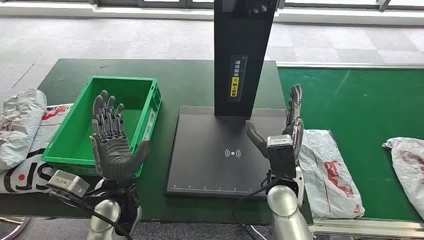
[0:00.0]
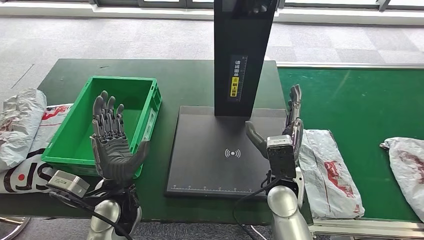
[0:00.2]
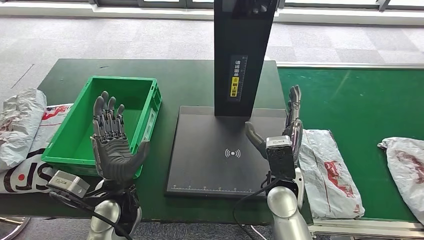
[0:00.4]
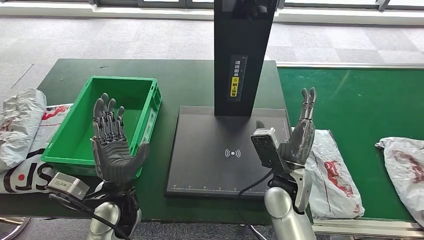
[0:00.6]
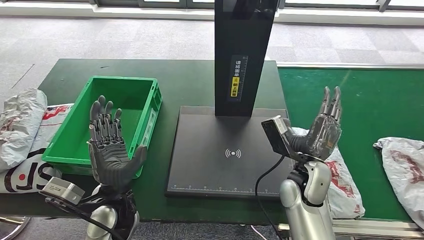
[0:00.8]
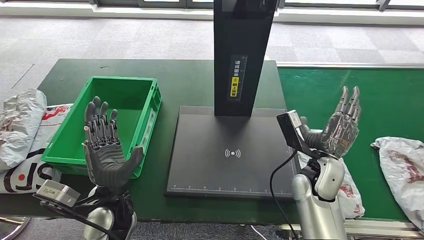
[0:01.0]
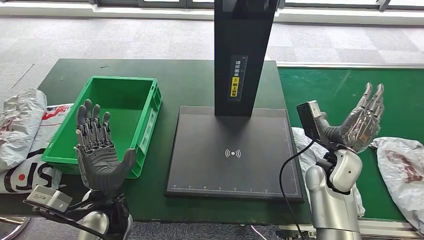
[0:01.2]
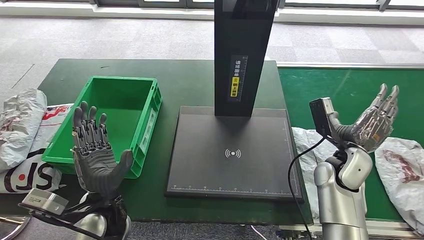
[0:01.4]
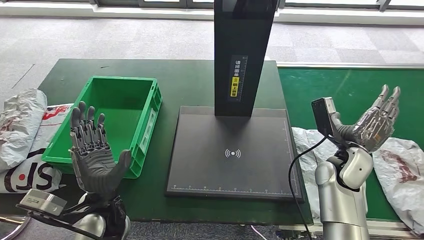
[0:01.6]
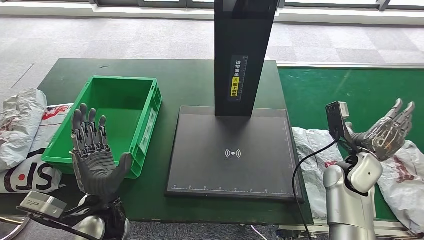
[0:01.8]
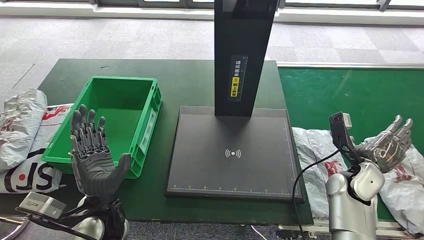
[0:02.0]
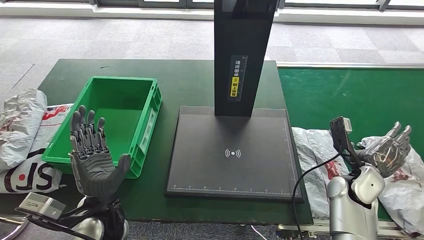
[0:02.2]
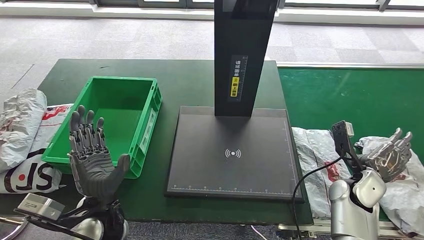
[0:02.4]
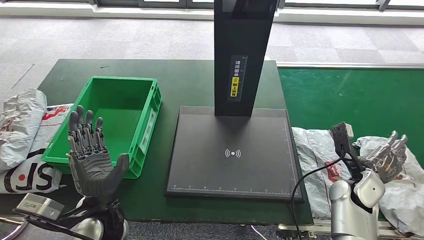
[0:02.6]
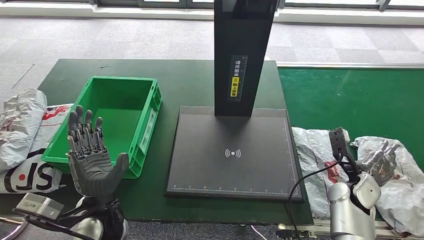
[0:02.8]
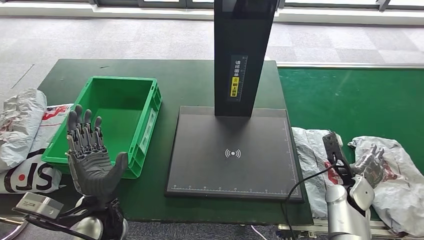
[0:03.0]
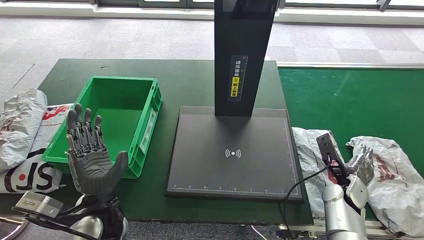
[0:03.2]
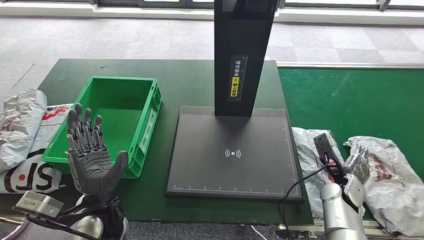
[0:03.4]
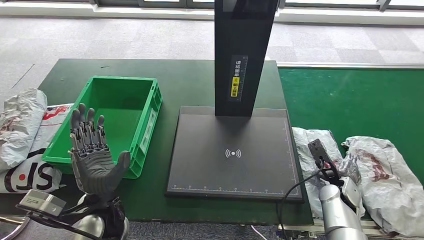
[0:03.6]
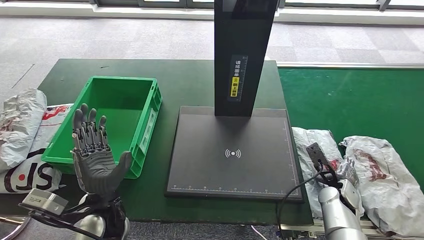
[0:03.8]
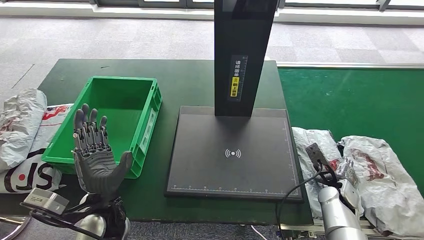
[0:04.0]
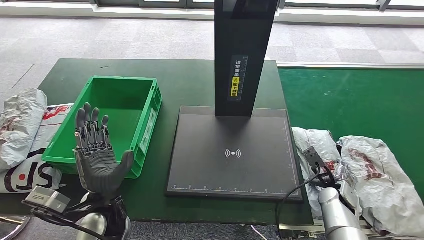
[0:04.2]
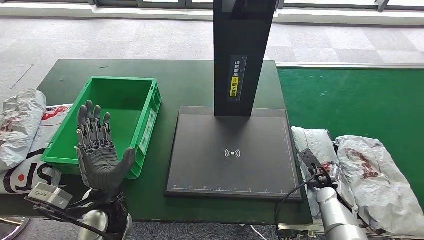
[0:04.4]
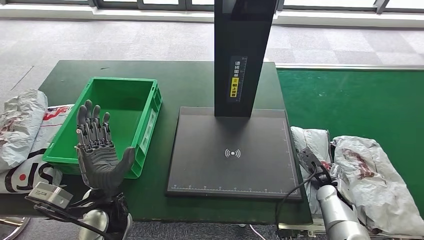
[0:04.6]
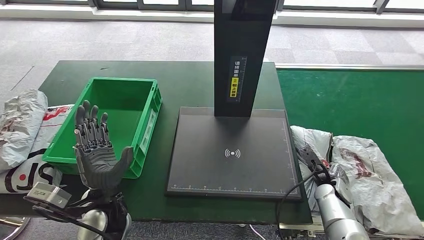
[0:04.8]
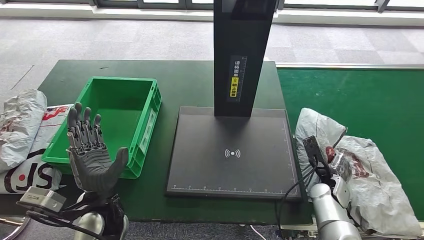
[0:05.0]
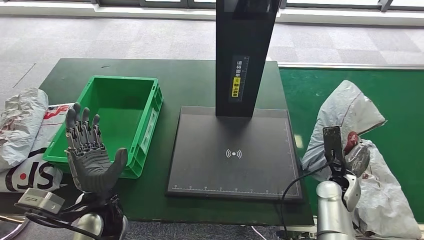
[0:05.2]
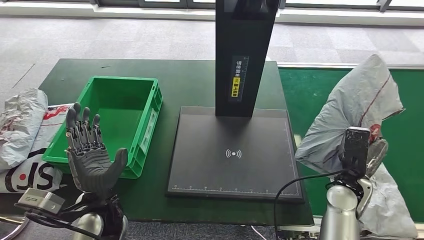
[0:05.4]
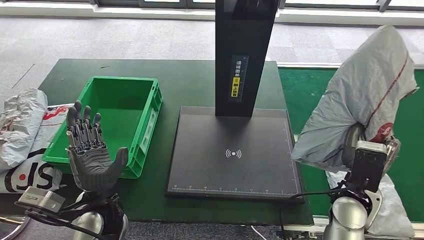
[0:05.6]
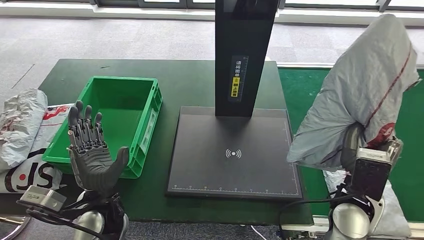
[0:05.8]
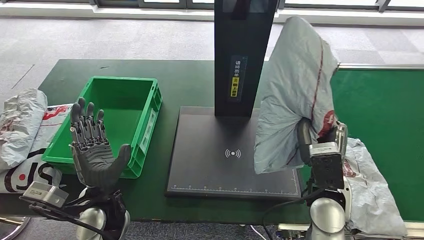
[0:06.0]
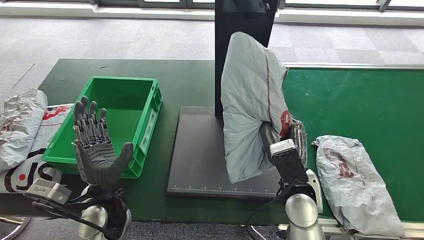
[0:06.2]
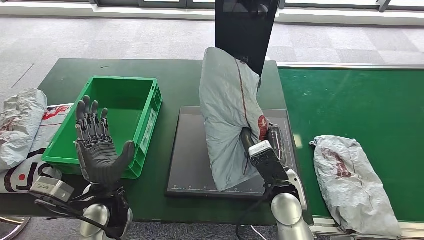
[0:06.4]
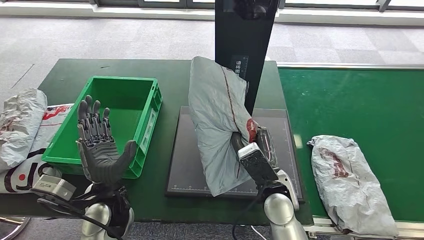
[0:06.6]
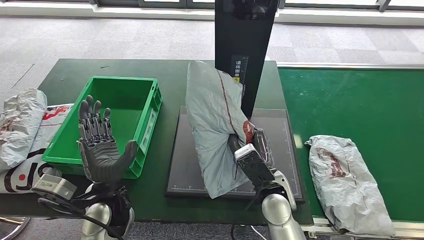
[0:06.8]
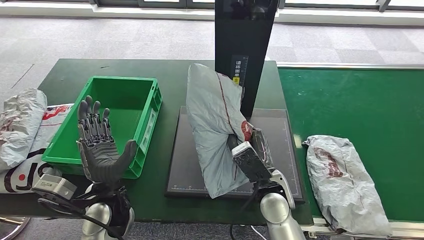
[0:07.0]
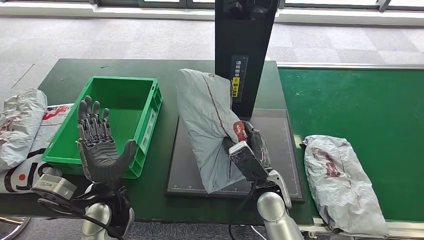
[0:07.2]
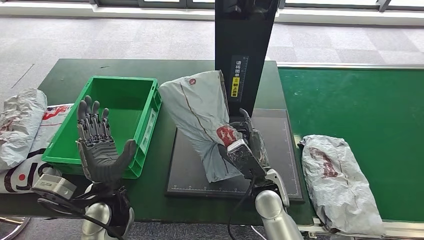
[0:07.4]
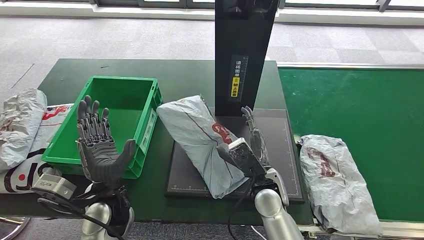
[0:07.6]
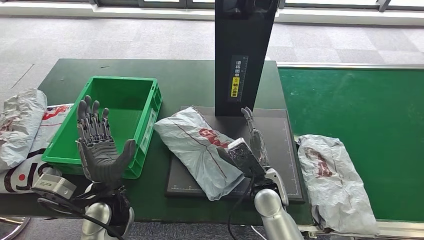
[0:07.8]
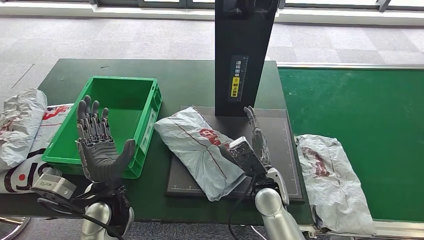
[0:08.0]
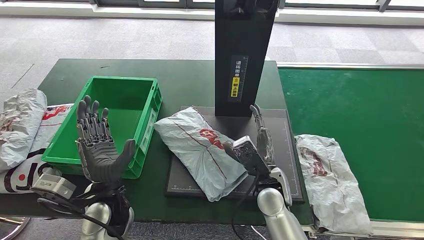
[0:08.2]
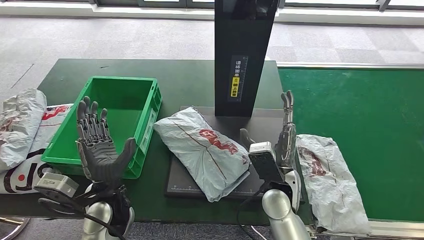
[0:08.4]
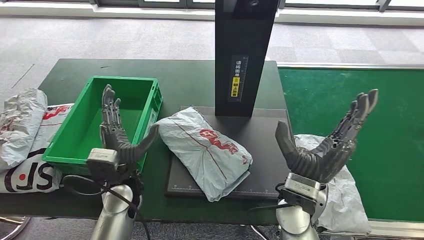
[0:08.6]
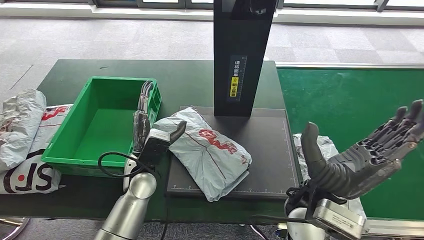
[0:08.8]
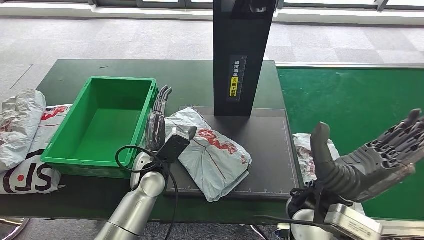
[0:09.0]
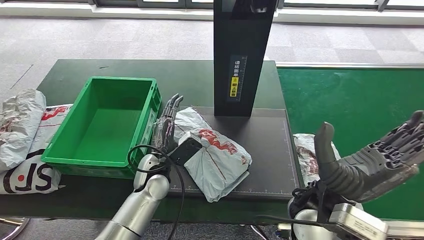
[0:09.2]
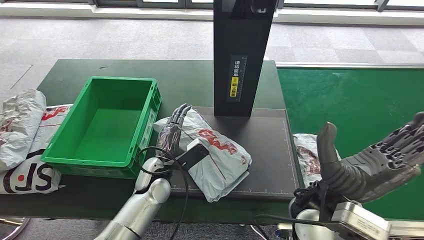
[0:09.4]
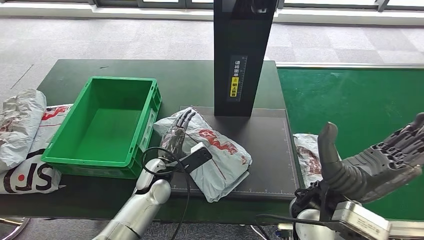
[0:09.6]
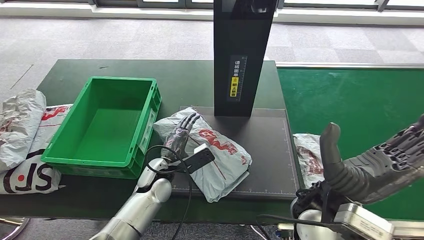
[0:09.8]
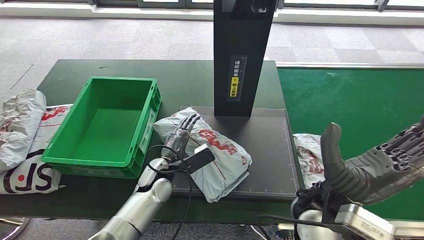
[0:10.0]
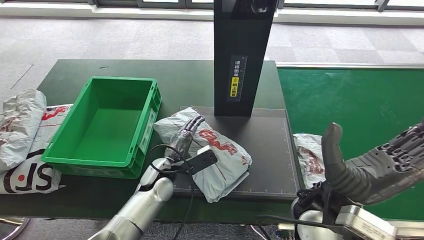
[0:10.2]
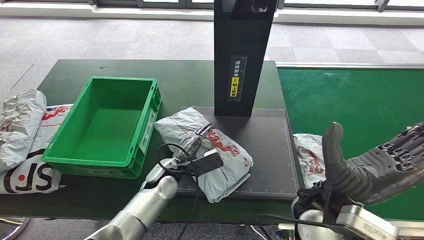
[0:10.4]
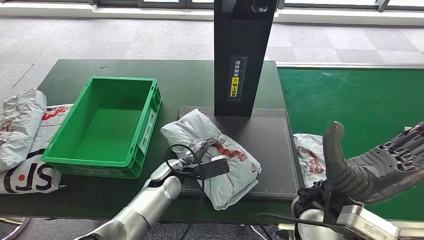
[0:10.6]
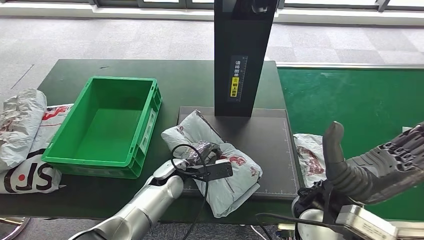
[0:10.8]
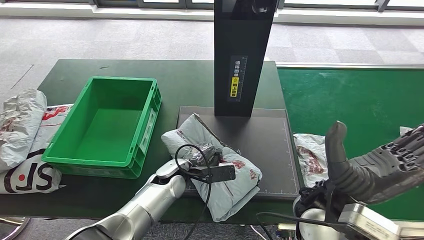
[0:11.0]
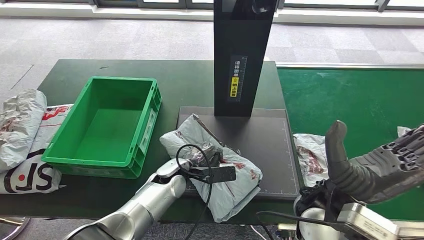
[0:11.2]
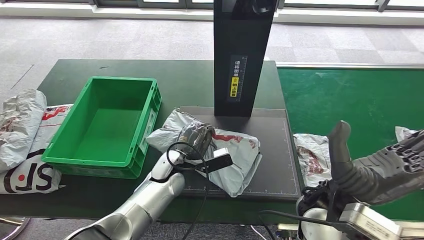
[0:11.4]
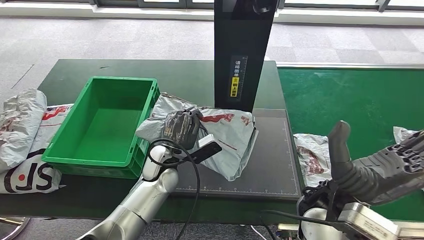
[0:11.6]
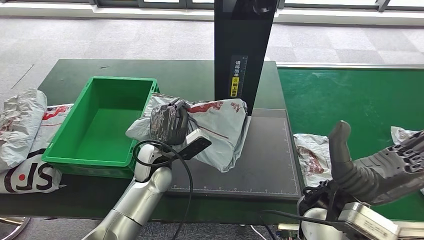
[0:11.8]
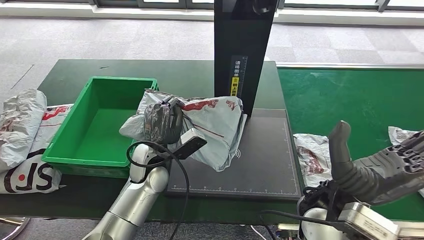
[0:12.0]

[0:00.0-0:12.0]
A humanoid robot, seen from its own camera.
Step, 0:00.0 to 0:05.6: Take the parcel off the conveyor belt.
Step, 0:05.8 to 0:08.8: Place the parcel onto the inbound machine.
0:01.6 to 0:03.0: The right hand travels downward and to the right by some 10 cm.
0:03.0 to 0:04.4: The right hand travels downward by roughly 5 cm.
0:04.4 to 0:06.0: The right hand goes about 20 cm upward and to the left.
0:09.0 to 0:10.4: The left hand moves downward, about 5 cm.
0:10.4 to 0:12.0: The left hand heads upward, covering approximately 5 cm.

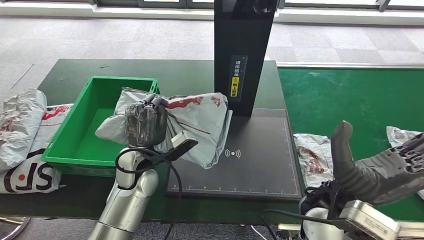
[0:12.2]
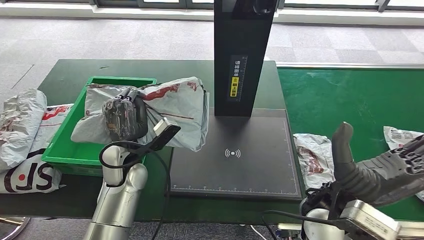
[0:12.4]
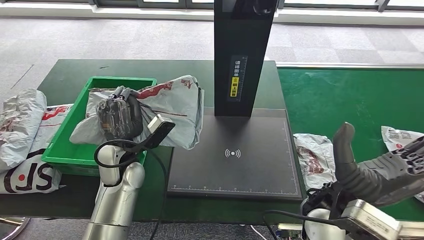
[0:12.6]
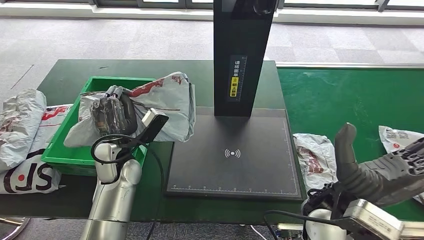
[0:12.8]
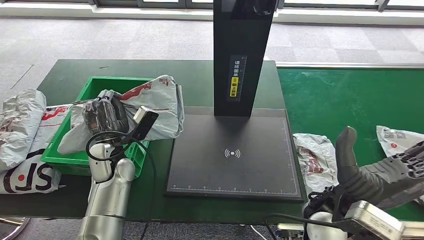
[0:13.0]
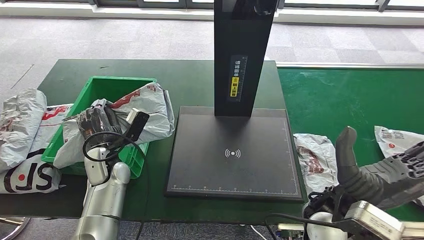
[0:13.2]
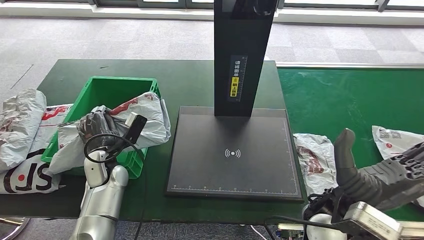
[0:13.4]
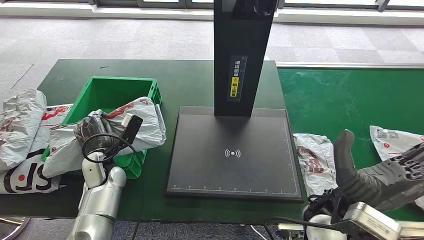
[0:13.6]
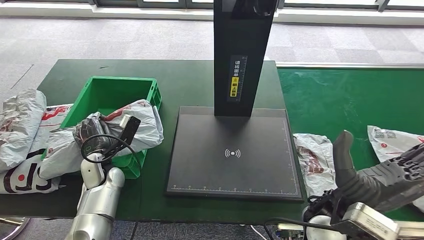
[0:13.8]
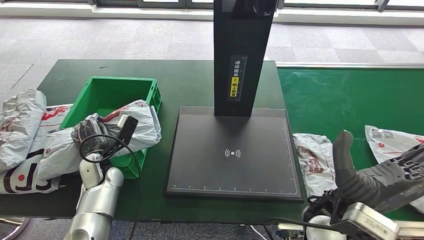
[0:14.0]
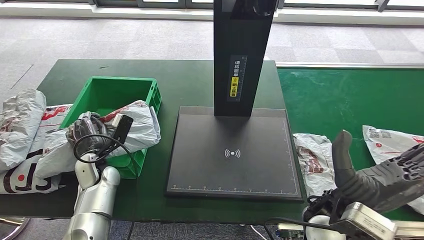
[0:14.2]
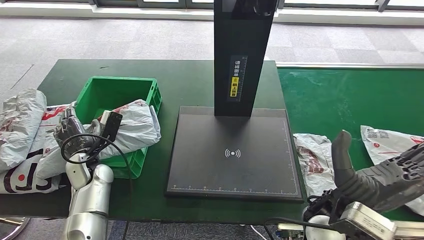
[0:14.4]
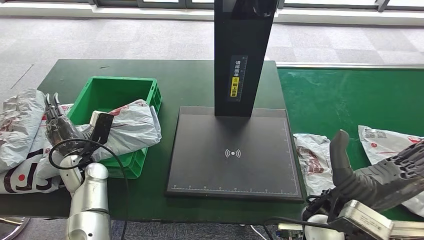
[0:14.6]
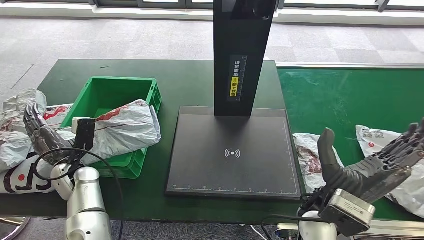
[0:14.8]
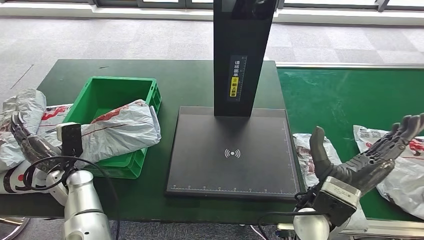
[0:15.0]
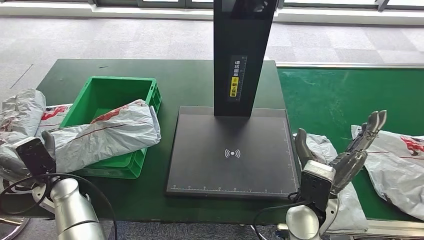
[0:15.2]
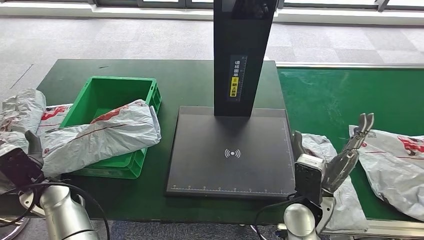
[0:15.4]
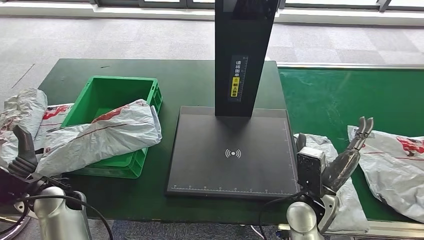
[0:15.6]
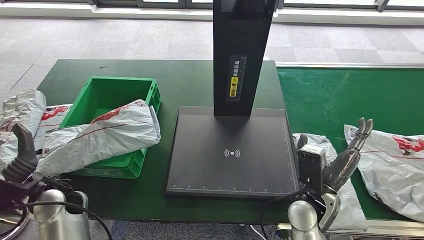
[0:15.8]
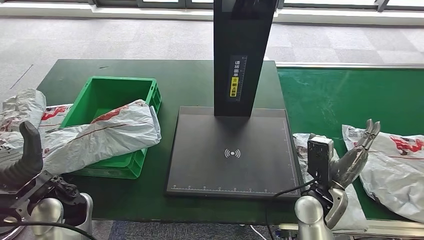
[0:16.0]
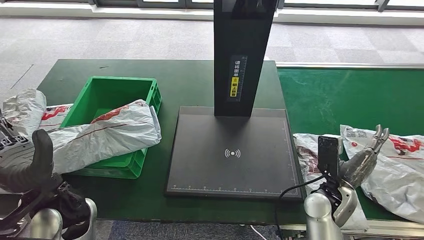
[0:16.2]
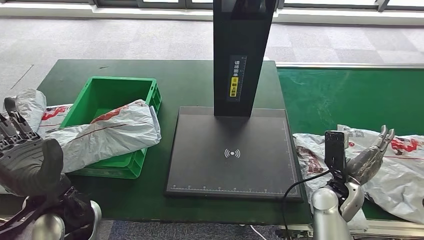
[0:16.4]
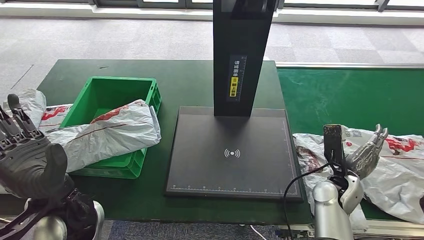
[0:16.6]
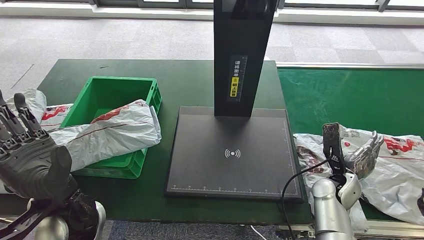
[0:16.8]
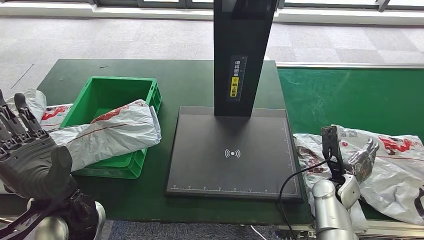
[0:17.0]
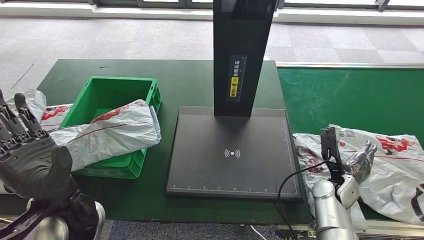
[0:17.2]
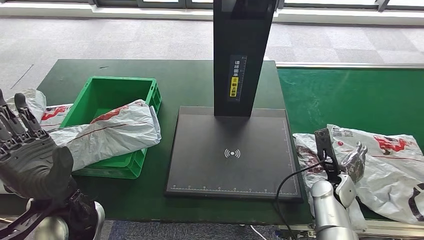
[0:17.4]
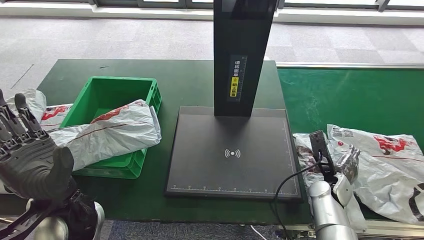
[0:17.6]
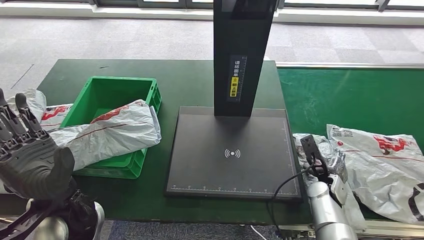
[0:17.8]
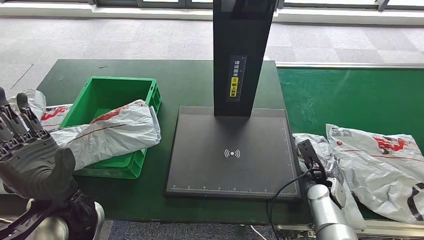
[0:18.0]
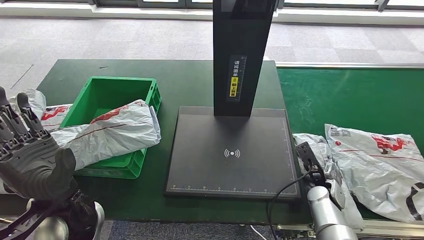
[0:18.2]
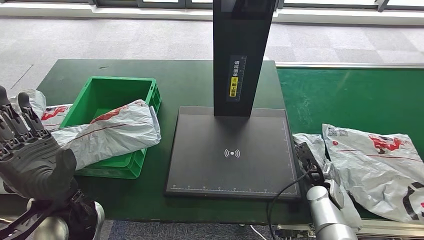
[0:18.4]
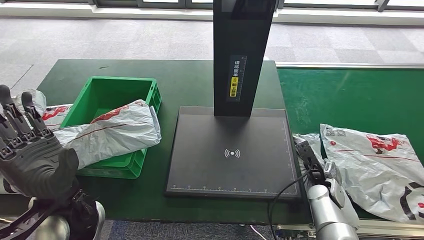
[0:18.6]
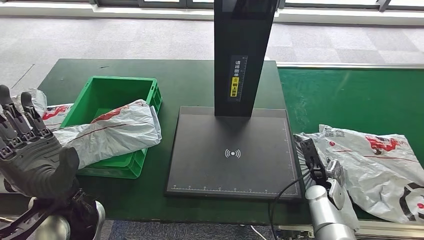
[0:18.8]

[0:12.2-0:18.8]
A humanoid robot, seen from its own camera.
Step, 0:13.6 to 0:15.8: Put the parcel inside the courier box.
0:12.2 to 0:13.8: The left hand travels to the left and downward by approximately 15 cm.
0:15.4 to 0:17.2: The right hand is displaced to the right, downward and forward by about 15 cm. Meanwhile the left hand shifts roughly 20 cm to the right, upward and backward.
